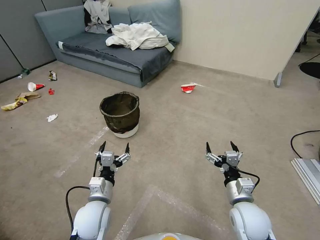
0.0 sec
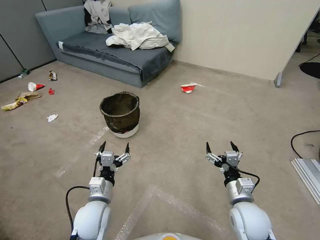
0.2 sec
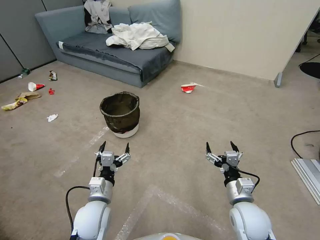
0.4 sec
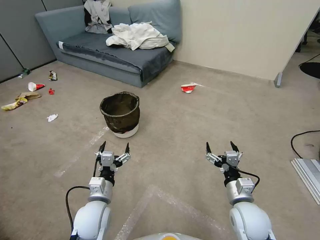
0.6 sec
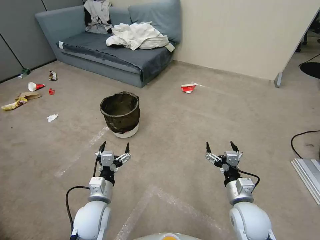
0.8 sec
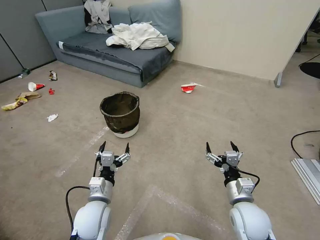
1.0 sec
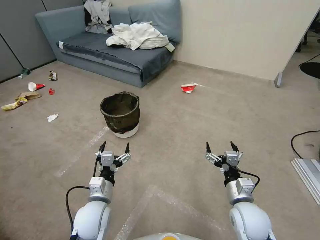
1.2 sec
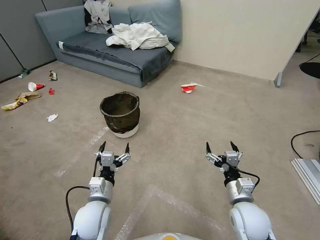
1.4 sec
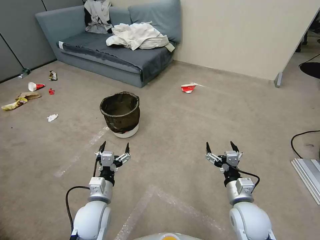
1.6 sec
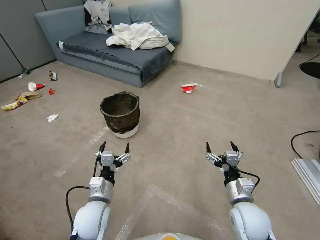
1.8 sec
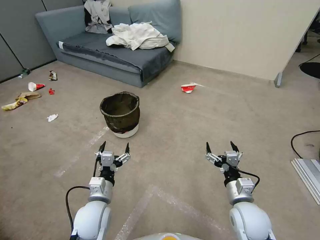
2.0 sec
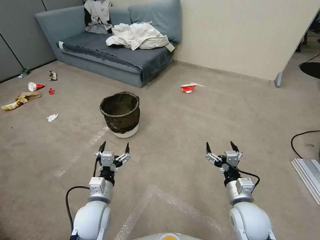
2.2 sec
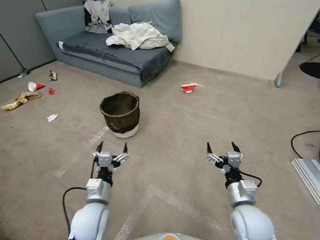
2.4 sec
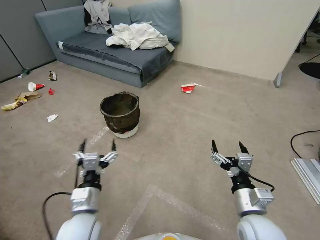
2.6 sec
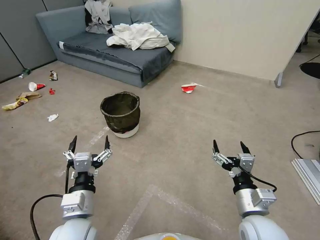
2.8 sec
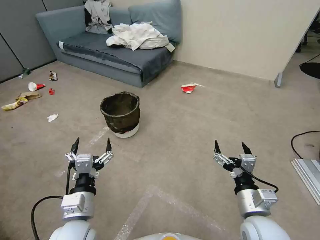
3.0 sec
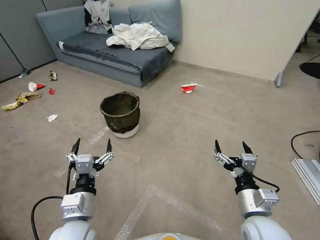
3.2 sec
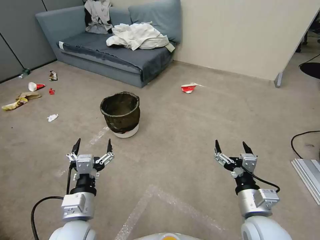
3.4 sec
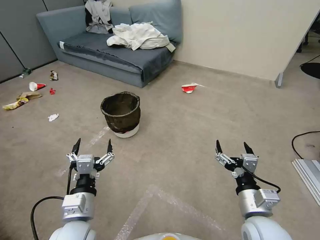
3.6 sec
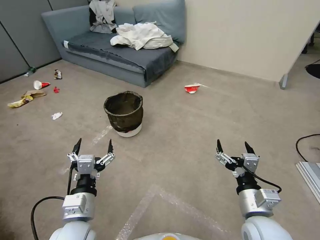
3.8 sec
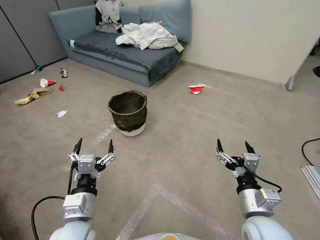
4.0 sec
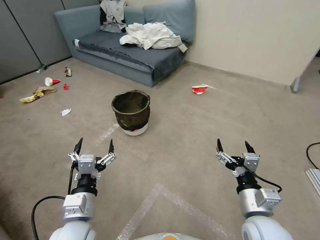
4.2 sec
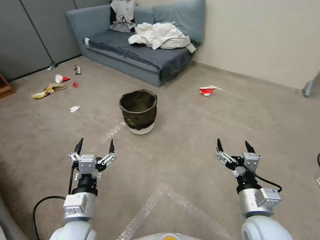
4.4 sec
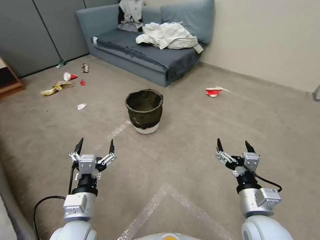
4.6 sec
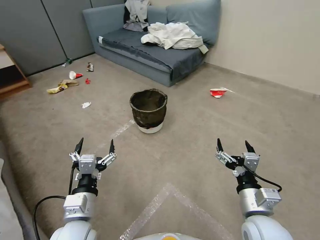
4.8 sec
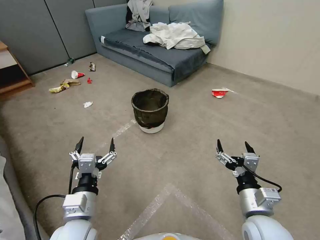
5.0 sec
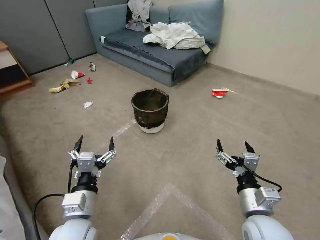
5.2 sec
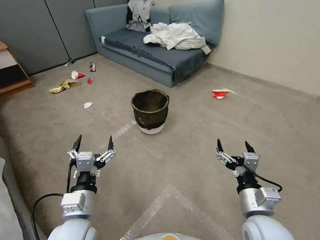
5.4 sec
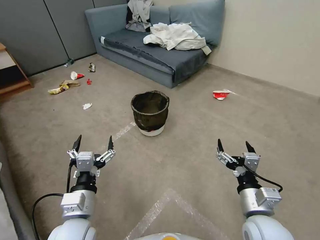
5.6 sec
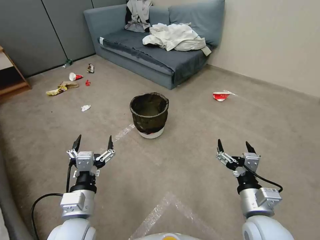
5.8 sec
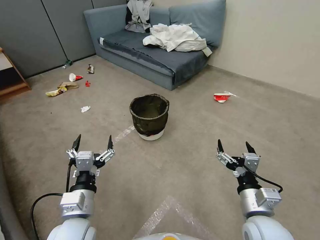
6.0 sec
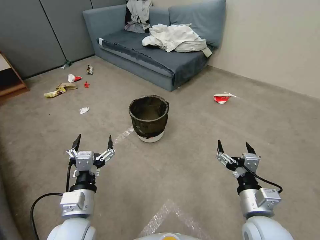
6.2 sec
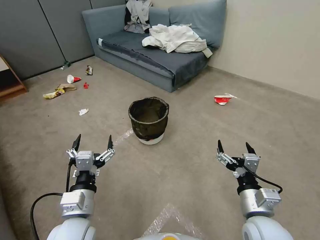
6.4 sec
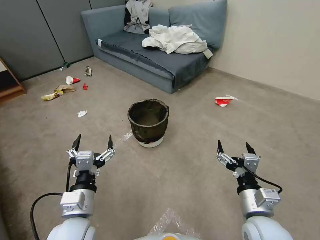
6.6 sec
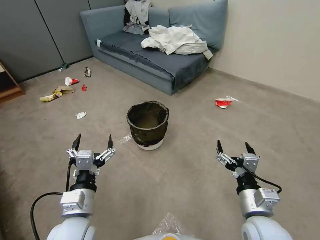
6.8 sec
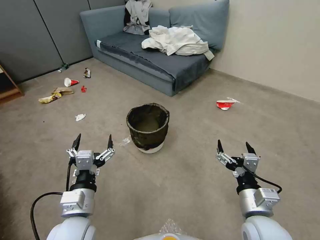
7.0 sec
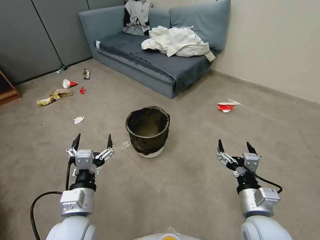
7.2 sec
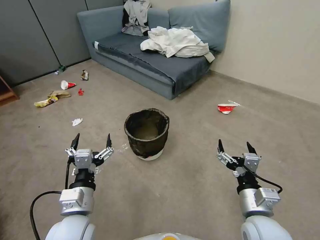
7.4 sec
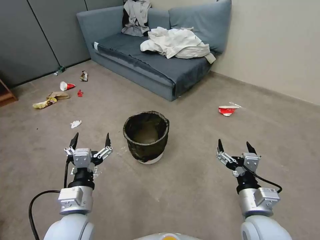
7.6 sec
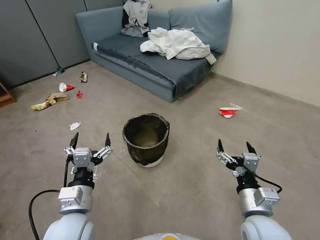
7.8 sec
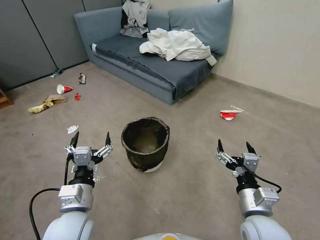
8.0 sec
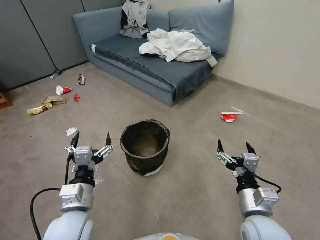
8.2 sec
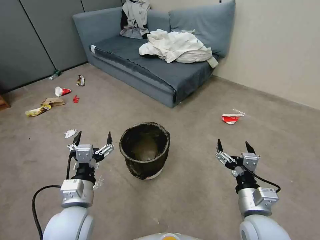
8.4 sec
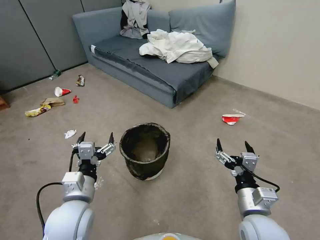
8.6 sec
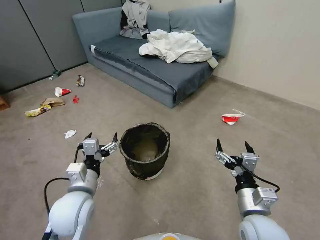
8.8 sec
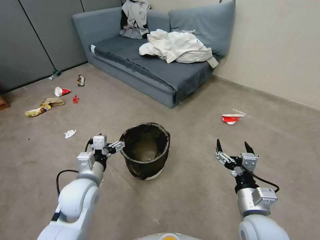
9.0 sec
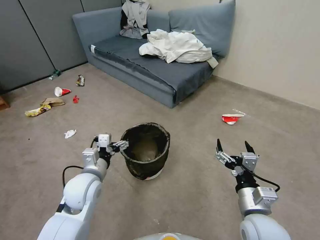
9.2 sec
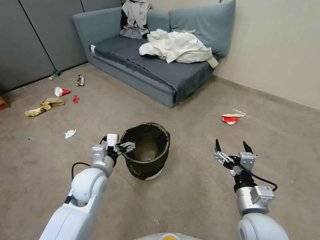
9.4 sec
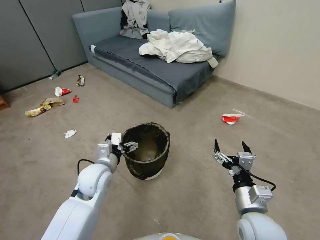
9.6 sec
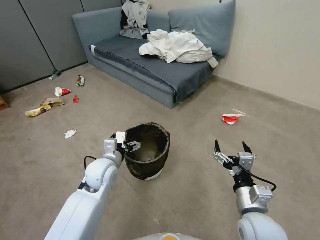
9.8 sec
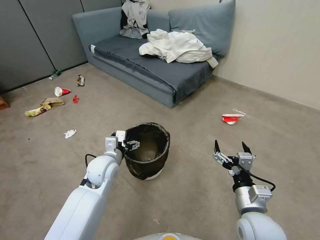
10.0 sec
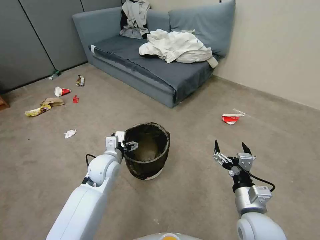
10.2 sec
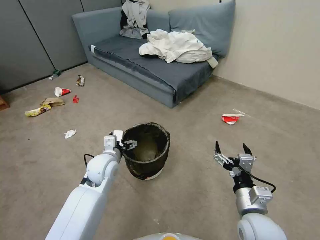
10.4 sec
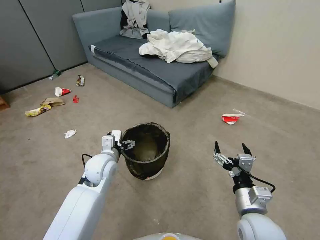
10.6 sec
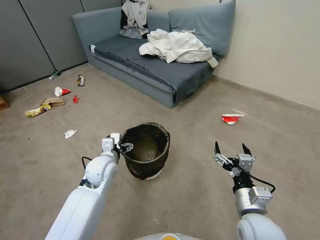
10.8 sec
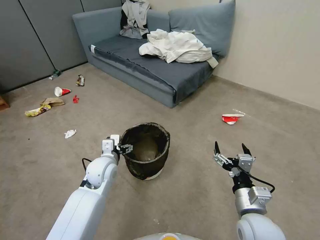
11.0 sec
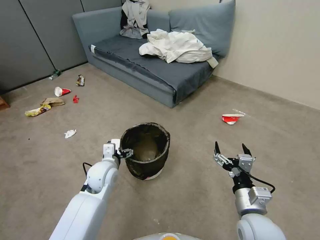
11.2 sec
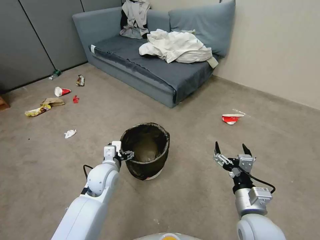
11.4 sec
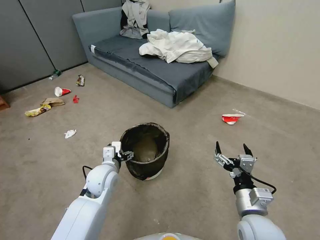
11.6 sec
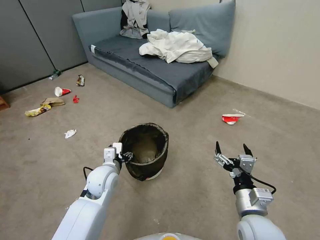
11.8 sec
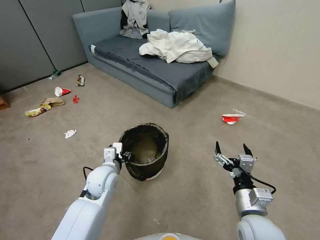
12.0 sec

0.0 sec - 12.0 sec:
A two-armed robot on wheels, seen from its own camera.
Task of the whole recording: Pick up the trash can from the floor.
1.6 sec - 3.0 sec: The left gripper travels upward and backward by roughly 10 cm; the right gripper goes roughly 5 cm upward.
7.6 sec - 9.0 sec: The left gripper goes approximately 10 cm forward.
9.0 sec - 10.4 sec: The left gripper heads forward, covering about 10 cm.
10.4 sec - 12.0 sec: The left gripper closes up.

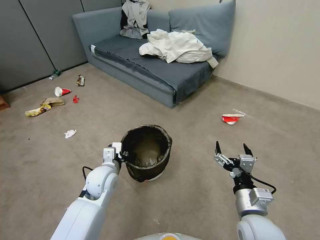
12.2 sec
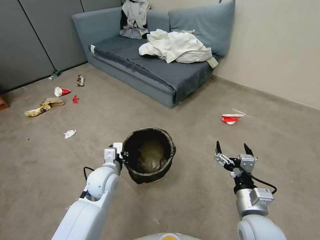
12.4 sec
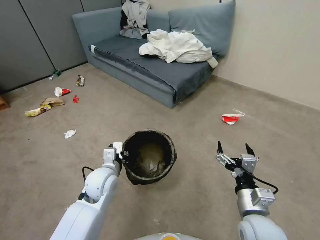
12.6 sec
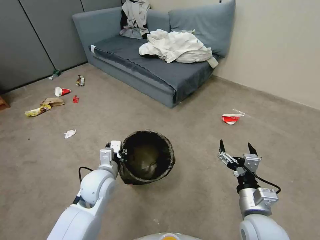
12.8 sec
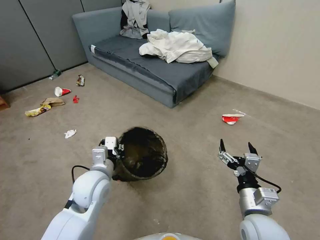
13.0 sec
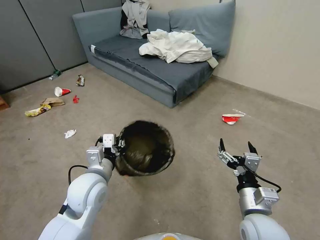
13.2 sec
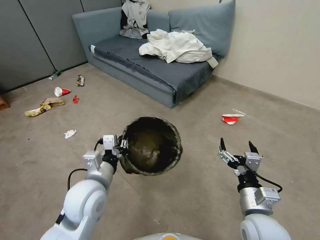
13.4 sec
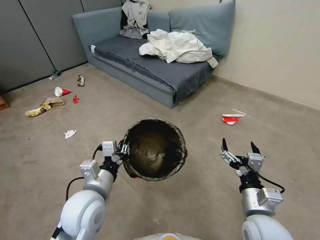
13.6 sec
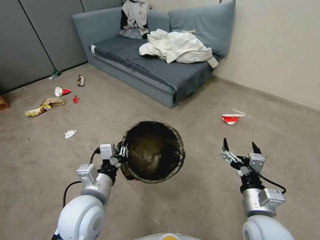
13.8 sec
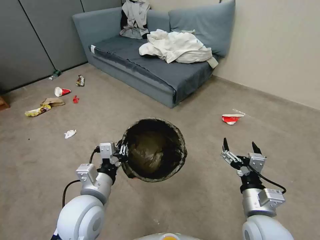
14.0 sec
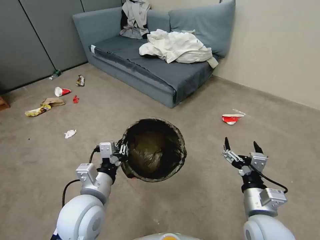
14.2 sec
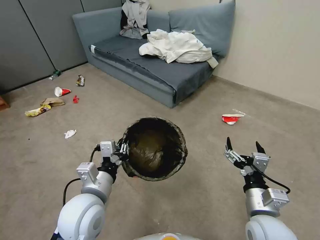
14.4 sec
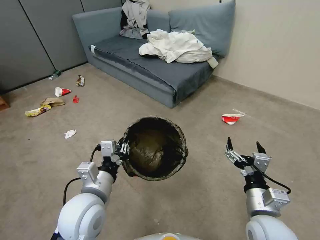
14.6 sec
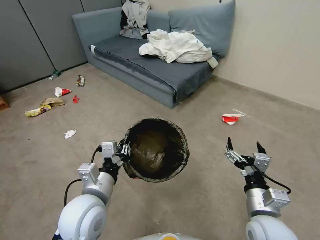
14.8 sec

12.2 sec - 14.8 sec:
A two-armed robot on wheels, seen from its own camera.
Task of the whole recording: Pick up the trash can from the floor.
12.2 sec - 13.4 sec: The left gripper travels upward and backward by roughly 10 cm.
13.4 sec - 14.8 sec: There are only small adjustments of the grippers.

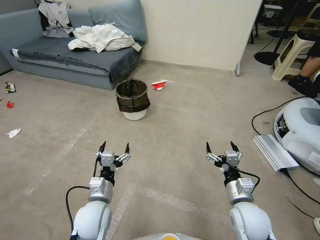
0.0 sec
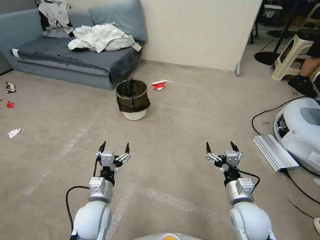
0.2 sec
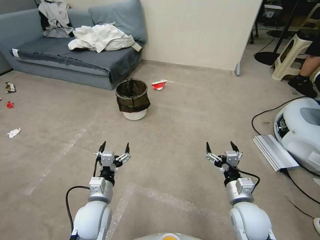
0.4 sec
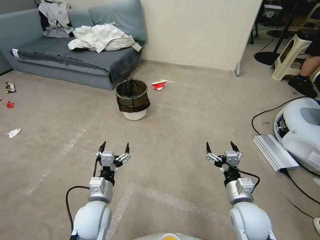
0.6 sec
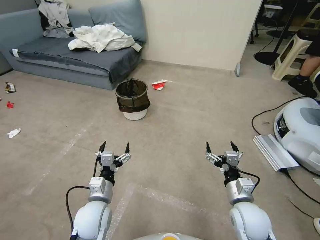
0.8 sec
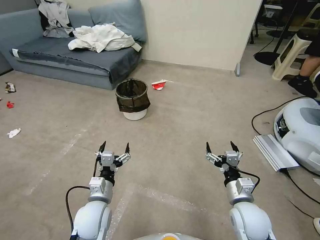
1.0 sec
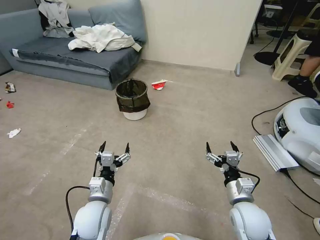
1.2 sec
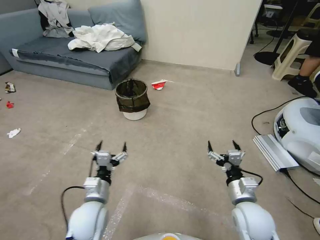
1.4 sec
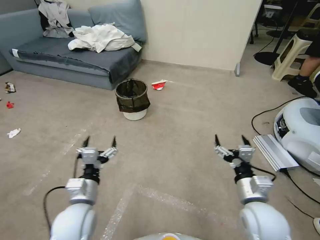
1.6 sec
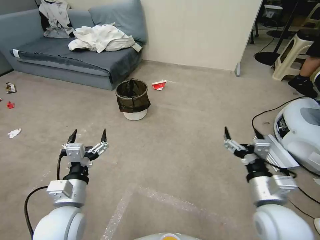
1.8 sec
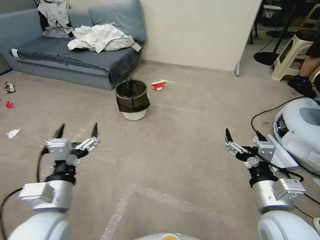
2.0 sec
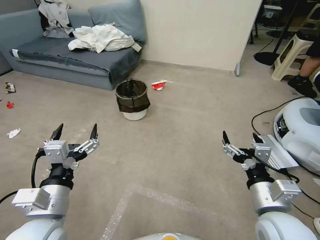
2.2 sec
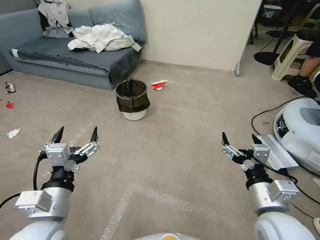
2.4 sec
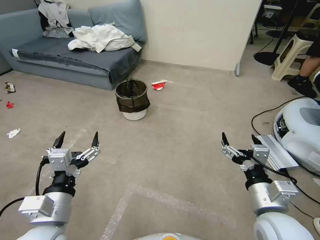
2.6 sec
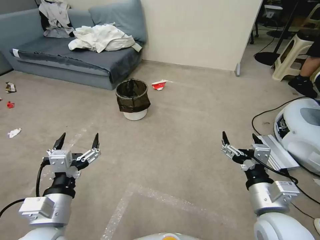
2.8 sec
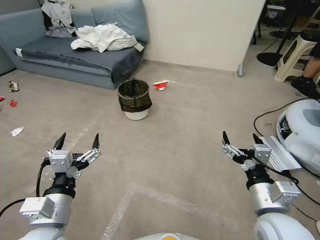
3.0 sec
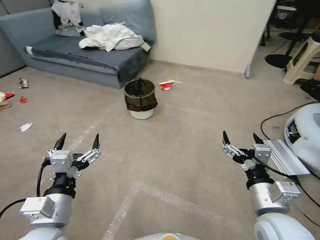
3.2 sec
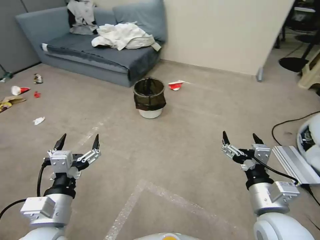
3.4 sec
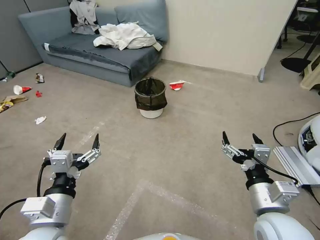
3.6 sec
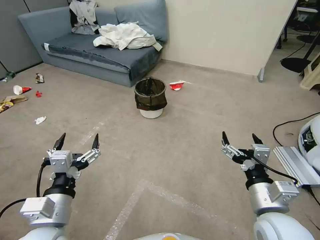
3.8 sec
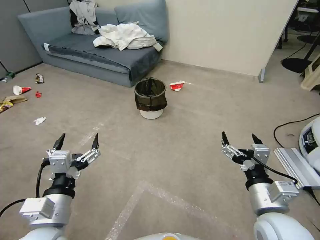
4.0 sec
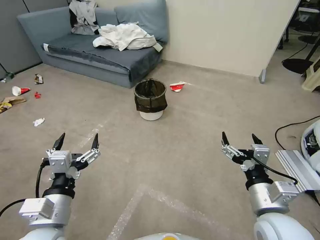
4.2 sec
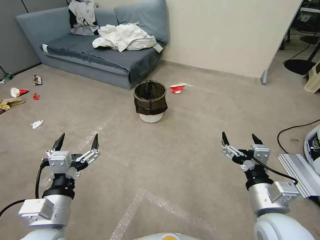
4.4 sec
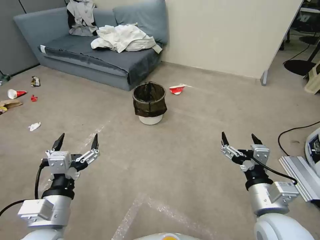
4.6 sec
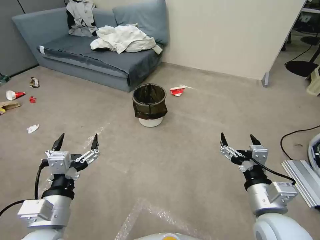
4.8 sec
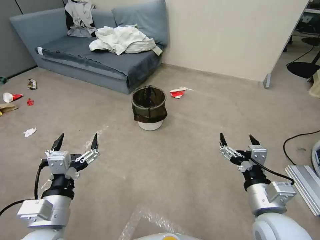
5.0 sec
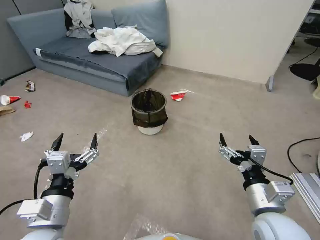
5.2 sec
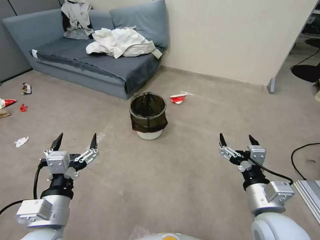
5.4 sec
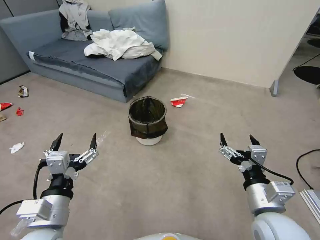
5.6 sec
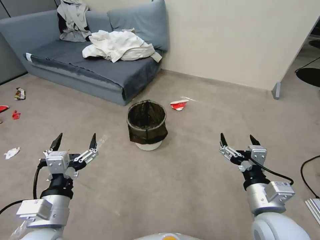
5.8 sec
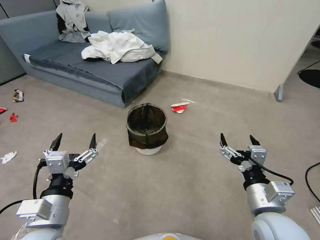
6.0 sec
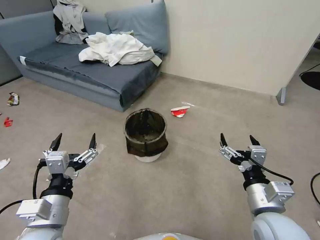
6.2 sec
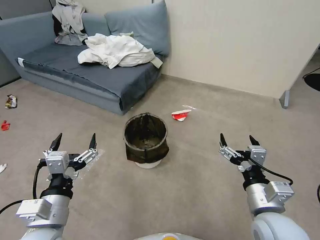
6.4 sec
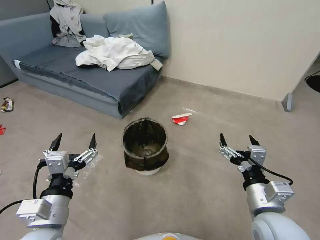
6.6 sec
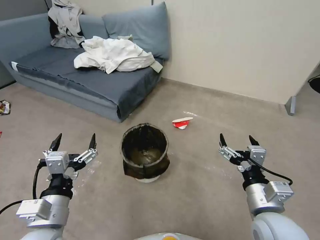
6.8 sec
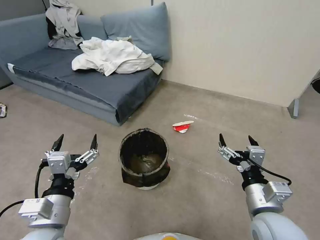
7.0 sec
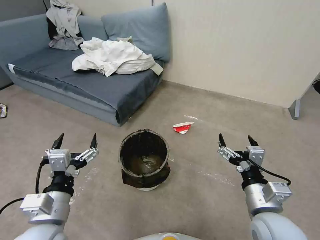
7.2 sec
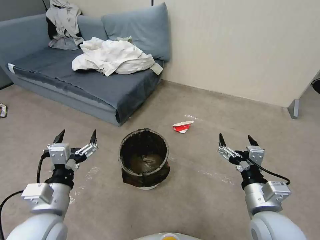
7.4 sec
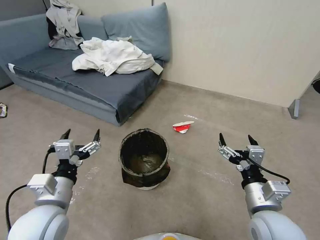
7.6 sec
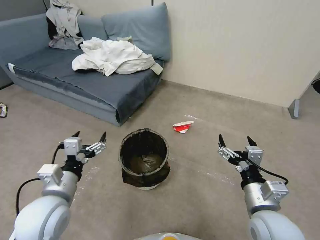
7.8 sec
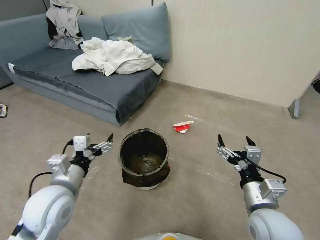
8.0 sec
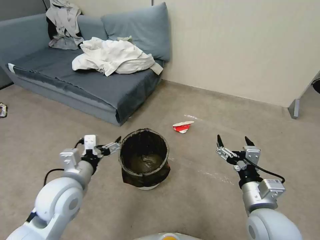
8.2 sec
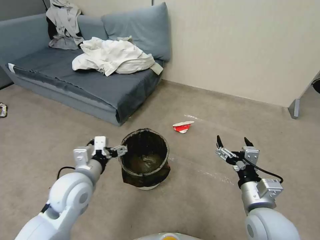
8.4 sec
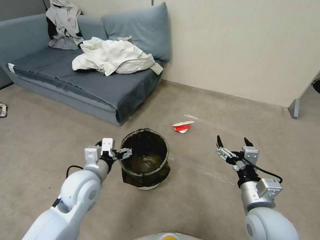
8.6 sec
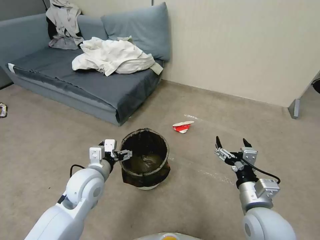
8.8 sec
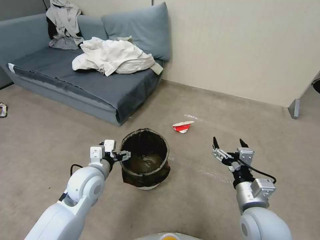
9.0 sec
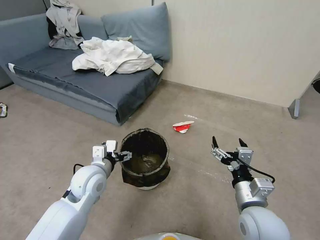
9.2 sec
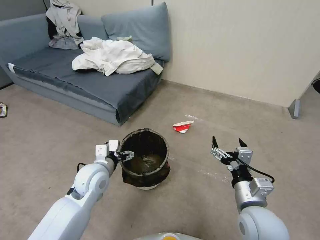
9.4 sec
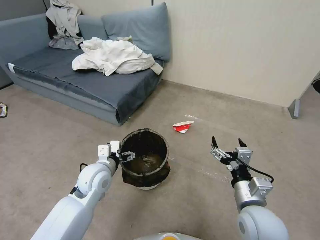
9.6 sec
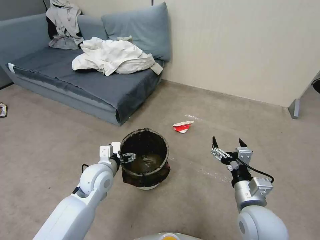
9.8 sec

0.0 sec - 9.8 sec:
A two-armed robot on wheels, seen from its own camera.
Task of the whole recording: Pick up the trash can from the floor.
1.4 sec - 2.8 sec: Both grippers travel together upward and backward, approximately 15 cm.
7.0 sec - 8.4 sec: The left gripper travels forward by roughly 10 cm.
8.4 sec - 9.8 sec: The left gripper shifts some 10 cm downward and forward.
